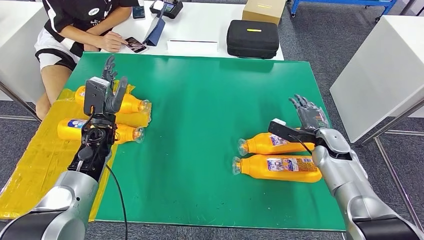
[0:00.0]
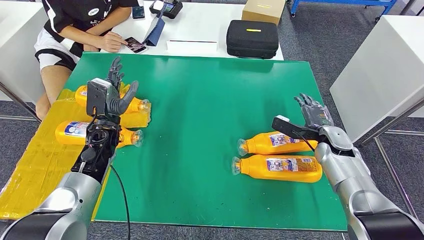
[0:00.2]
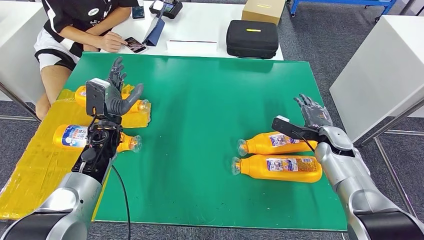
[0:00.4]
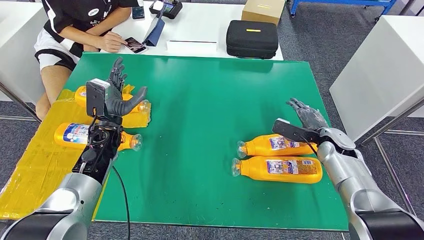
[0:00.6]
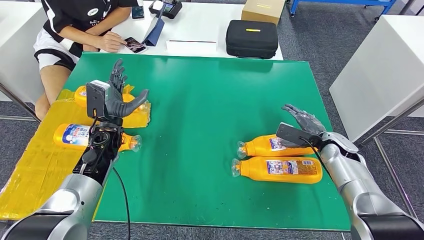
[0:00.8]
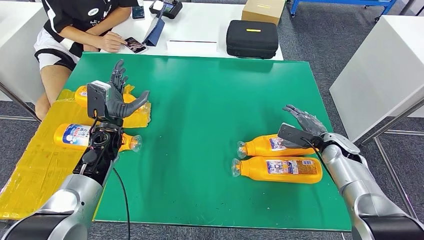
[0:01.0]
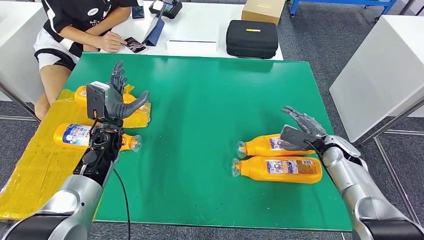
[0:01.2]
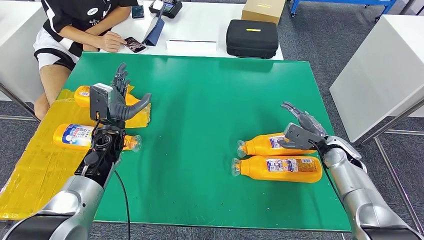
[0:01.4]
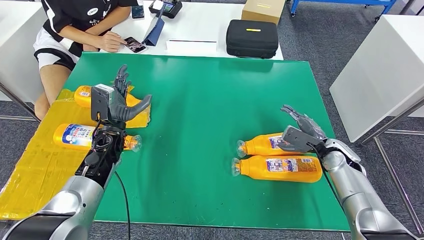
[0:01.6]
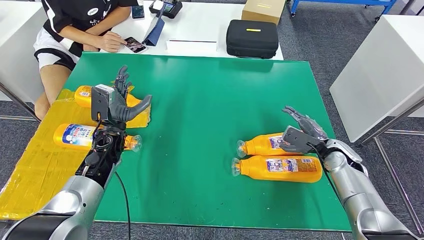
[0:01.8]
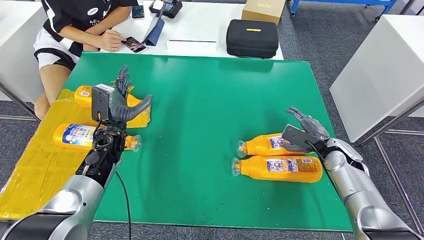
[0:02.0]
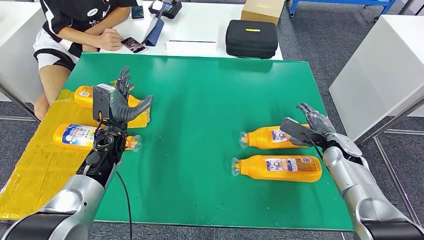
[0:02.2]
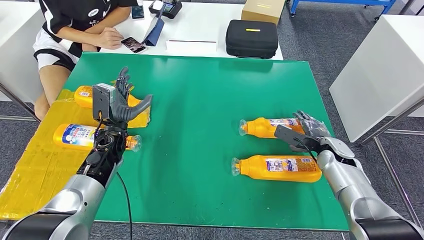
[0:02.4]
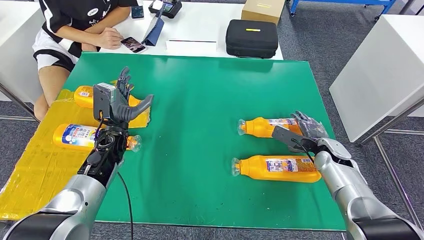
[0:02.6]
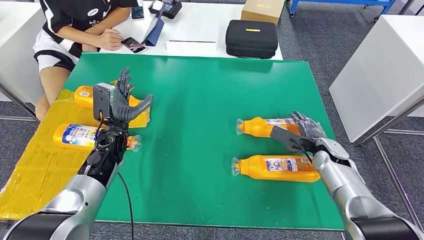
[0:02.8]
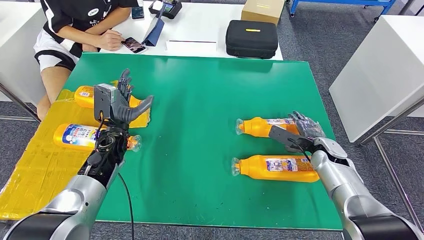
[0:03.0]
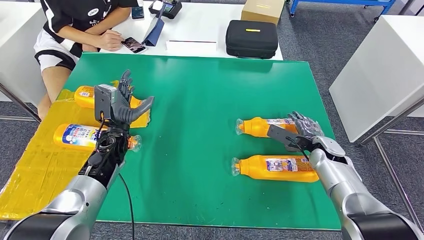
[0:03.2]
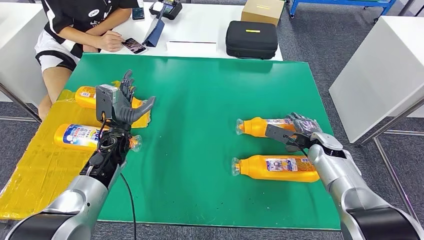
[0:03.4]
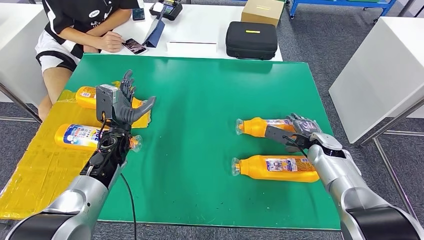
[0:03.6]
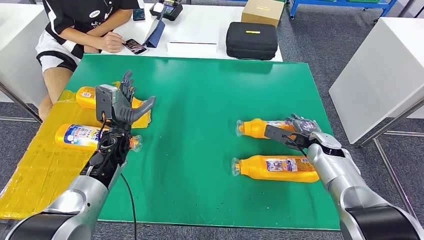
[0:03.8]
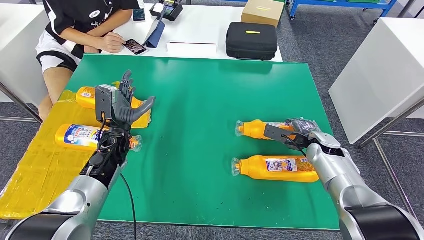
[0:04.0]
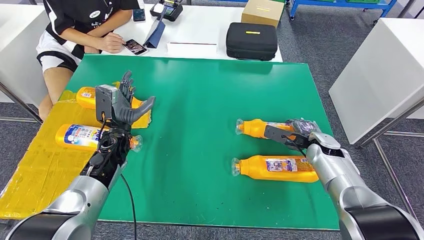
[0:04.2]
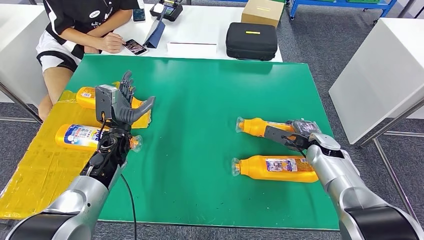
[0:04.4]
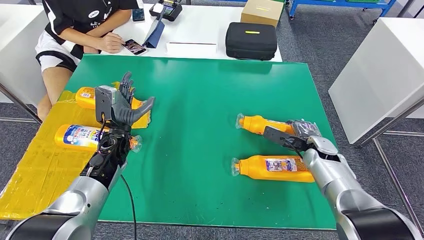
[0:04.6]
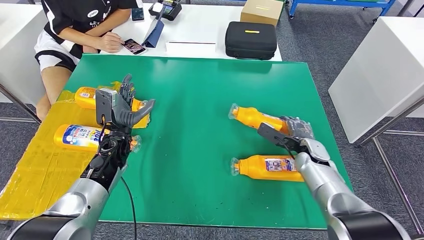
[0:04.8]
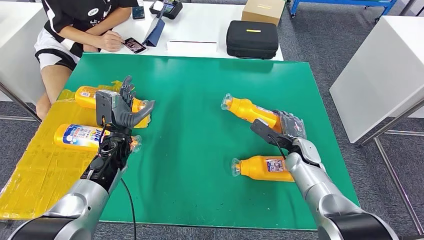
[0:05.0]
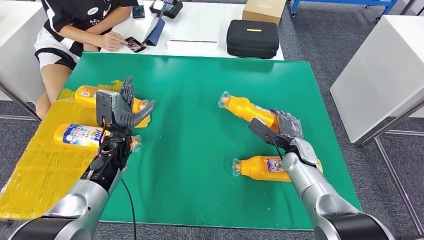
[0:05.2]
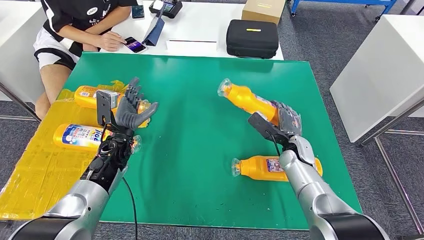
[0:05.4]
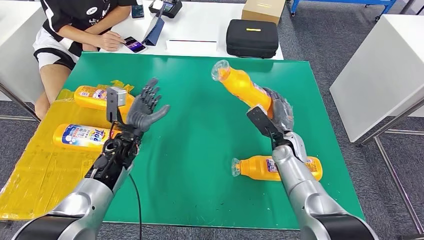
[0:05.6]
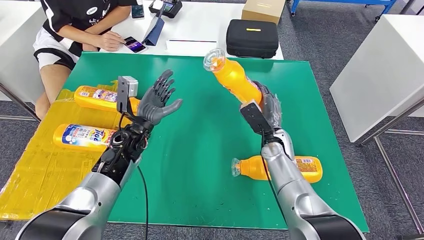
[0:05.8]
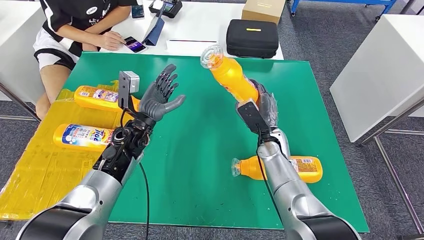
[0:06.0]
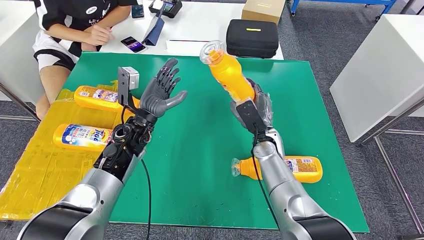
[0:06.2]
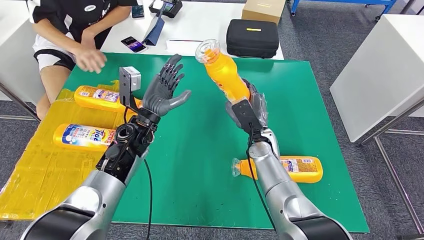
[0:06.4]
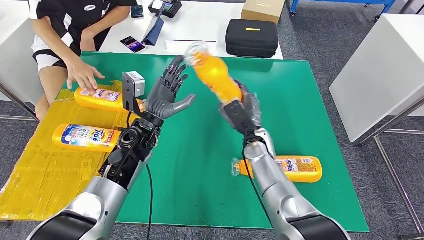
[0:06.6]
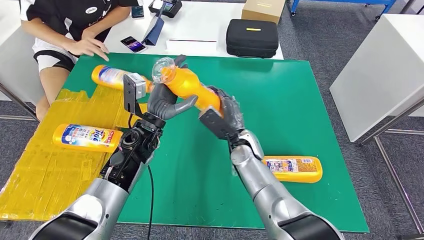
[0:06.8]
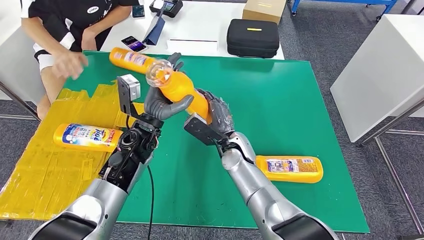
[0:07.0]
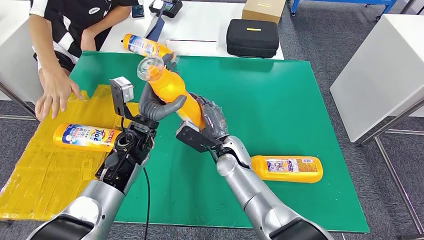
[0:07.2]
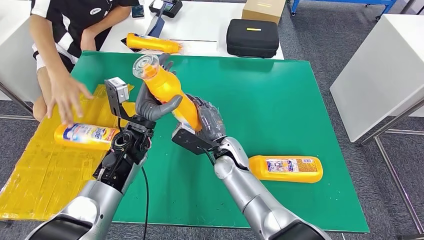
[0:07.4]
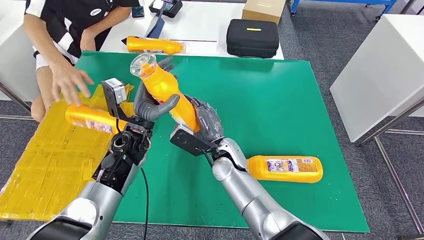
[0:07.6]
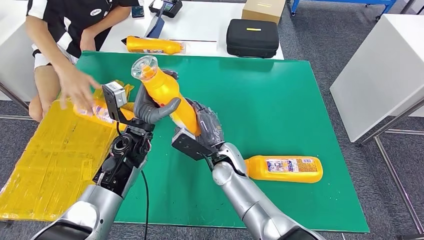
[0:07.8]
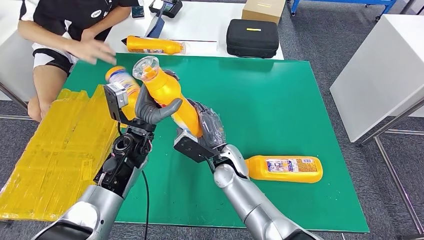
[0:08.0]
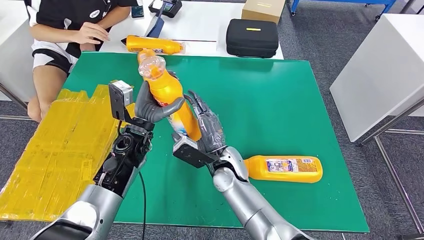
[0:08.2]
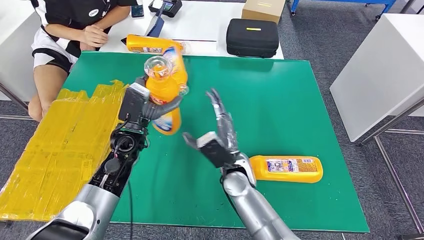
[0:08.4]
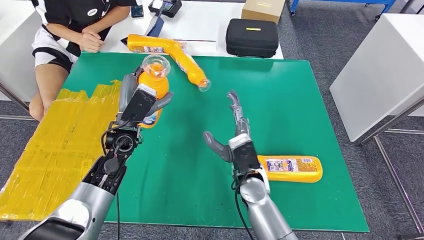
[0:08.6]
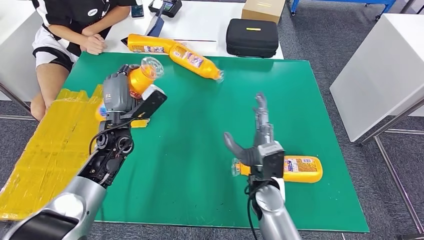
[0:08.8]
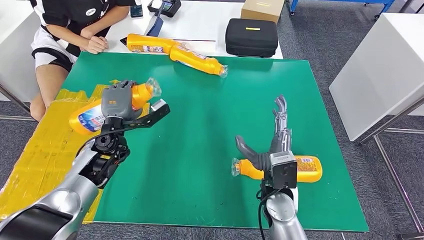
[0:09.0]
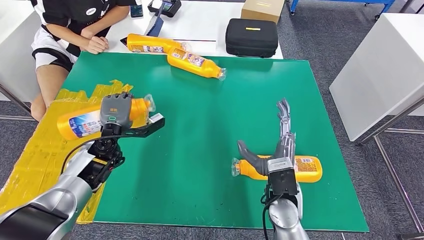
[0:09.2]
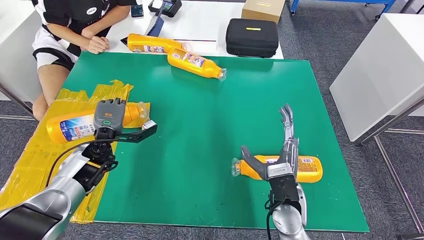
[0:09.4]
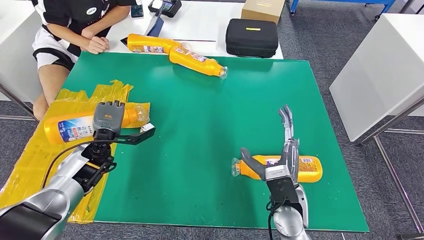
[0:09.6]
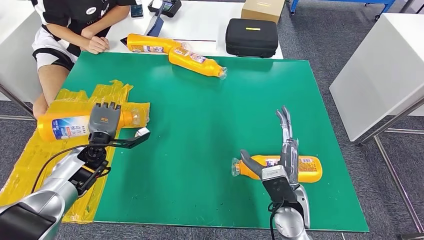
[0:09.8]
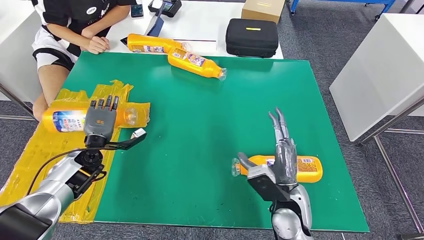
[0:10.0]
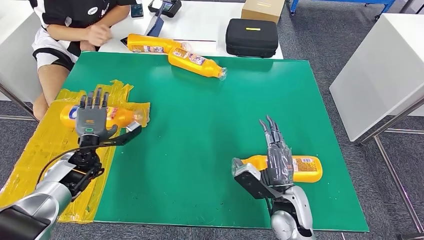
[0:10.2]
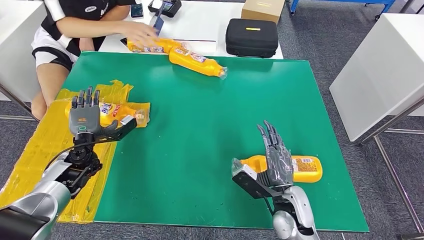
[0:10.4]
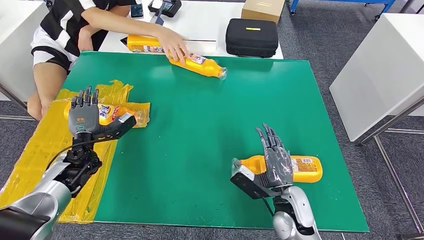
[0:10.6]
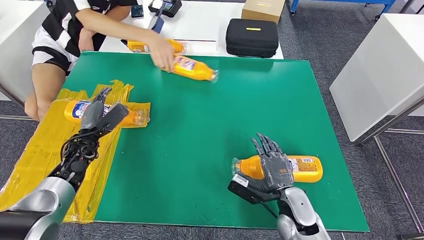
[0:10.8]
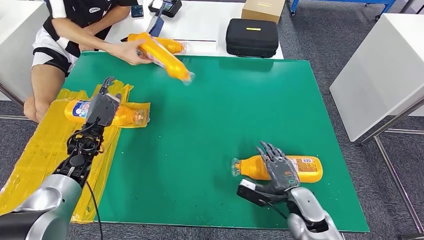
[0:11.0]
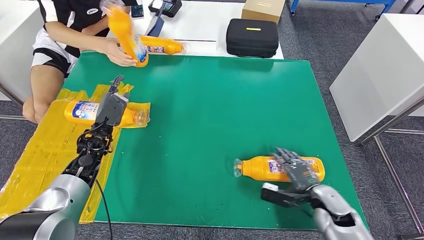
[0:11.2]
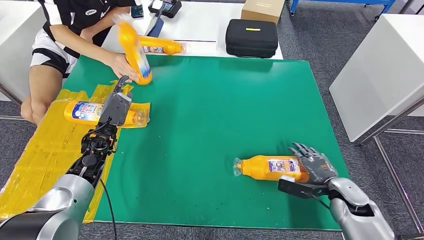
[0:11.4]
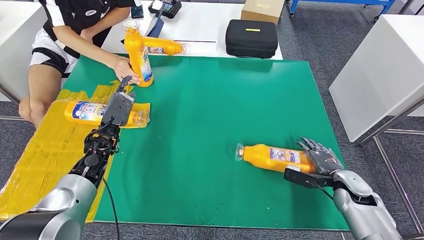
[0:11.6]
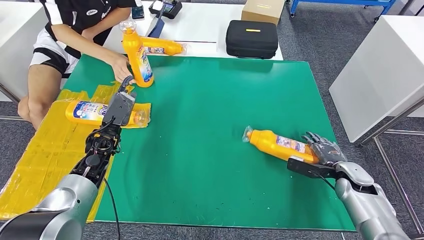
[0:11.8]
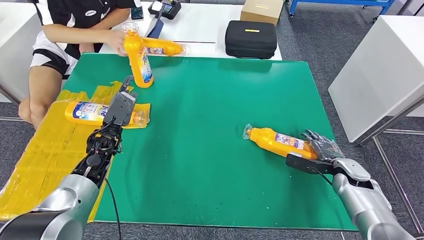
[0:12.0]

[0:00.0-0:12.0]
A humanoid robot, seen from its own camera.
Step, 0:00.0 to 0:09.0: Pick up the bottle from the table.
Step, 0:09.2 to 0:11.8: Flip the bottle to face forward.
0:03.0 to 0:04.4: The hands move only a little.

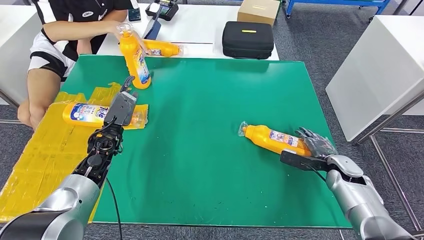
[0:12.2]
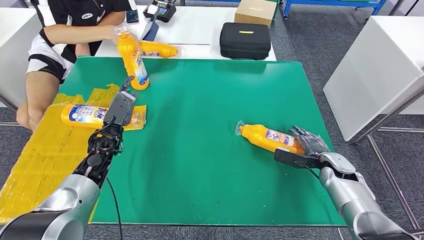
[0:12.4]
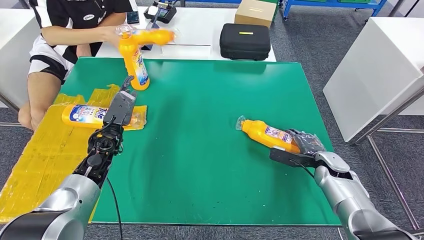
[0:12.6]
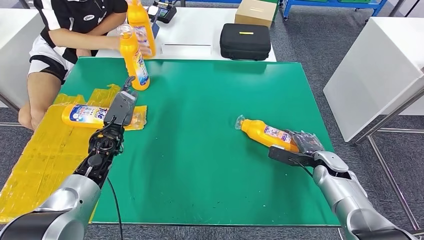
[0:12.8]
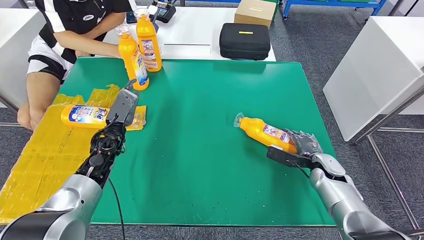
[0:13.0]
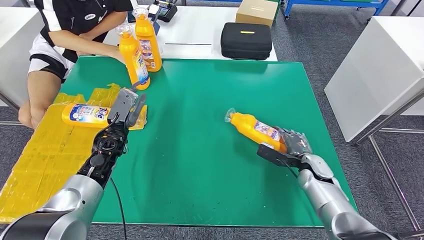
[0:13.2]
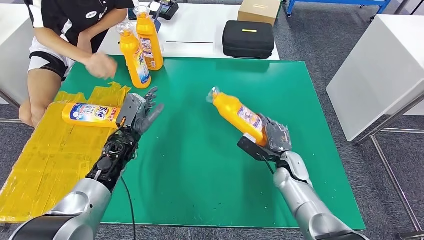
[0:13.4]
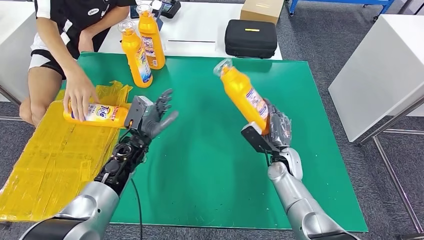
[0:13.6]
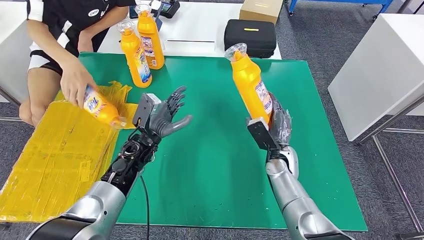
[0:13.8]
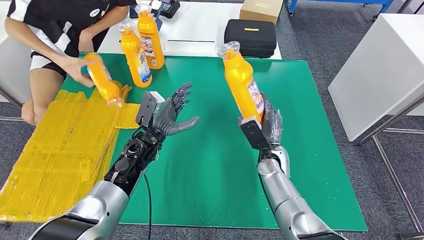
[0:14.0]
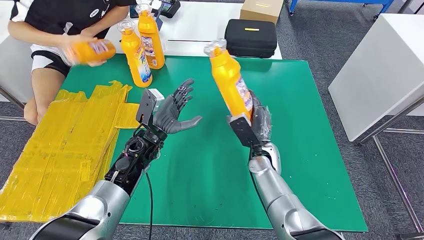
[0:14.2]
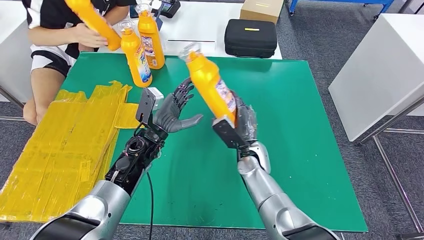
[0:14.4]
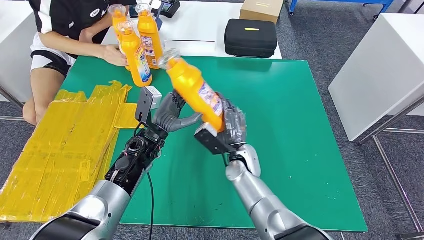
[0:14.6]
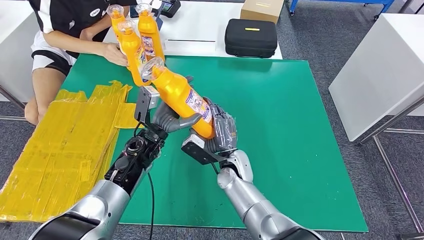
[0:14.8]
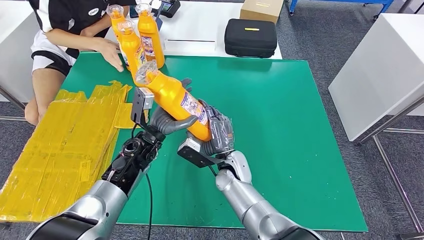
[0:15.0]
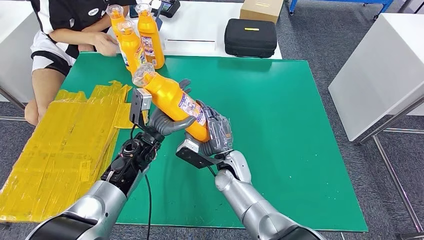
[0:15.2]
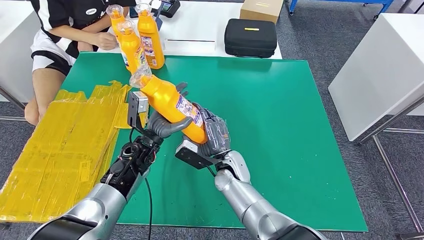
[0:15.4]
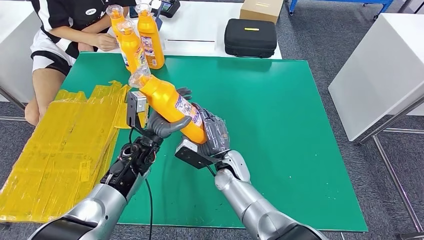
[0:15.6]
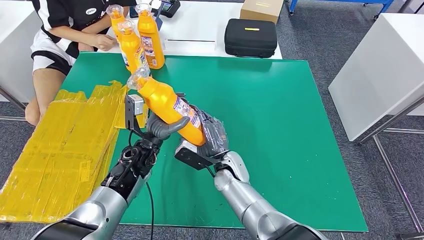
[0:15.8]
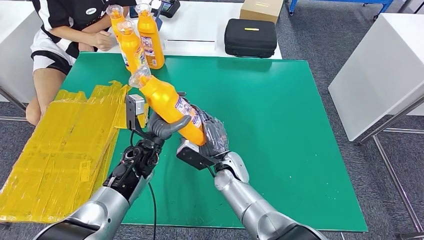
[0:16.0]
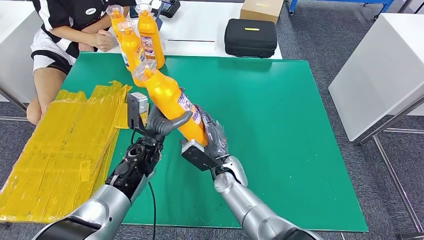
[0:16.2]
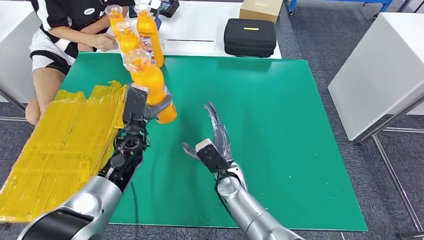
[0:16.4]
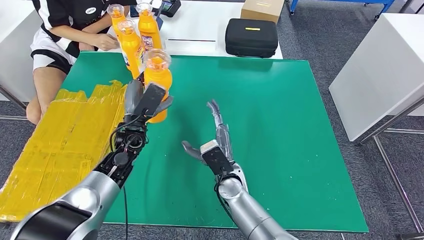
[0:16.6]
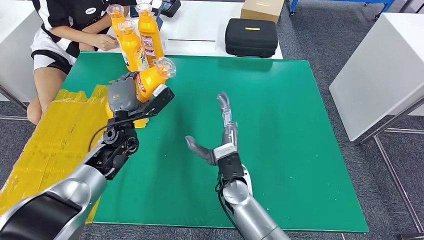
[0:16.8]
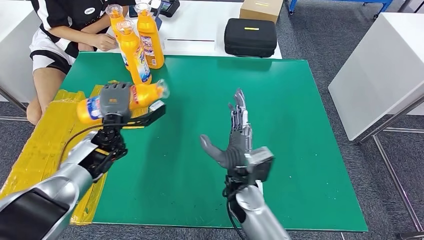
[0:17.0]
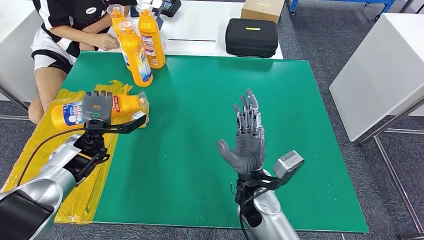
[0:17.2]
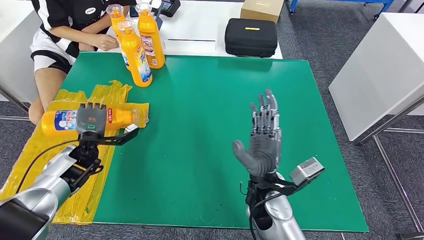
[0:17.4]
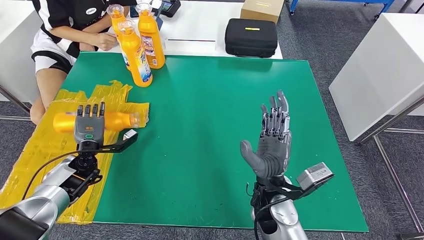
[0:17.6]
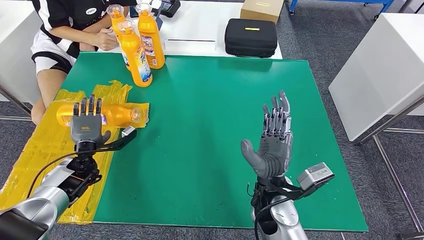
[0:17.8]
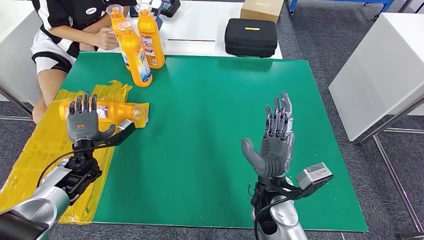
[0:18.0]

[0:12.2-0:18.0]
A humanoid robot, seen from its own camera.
Step, 0:12.2 to 0:15.0: Pick up the bottle from the table.
Step, 0:15.2 to 0:18.0: Flip the bottle to face forward.
0:15.0 to 0:16.6: The left hand changes place by about 5 cm.
